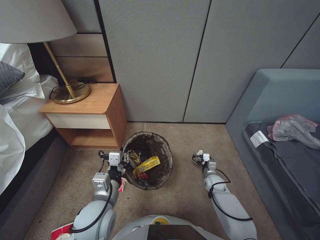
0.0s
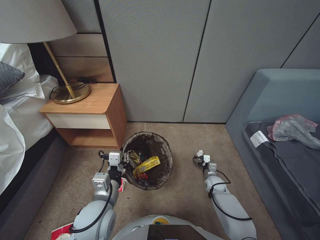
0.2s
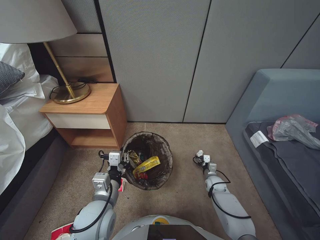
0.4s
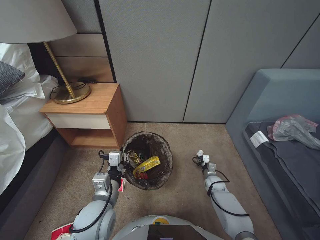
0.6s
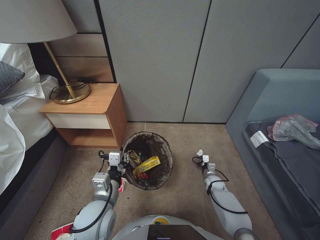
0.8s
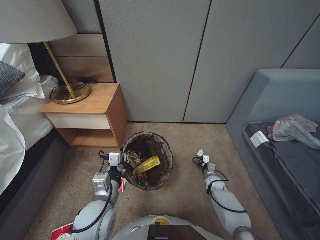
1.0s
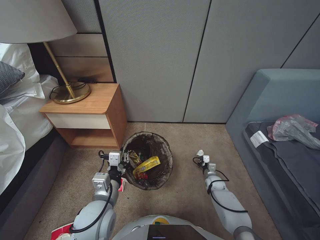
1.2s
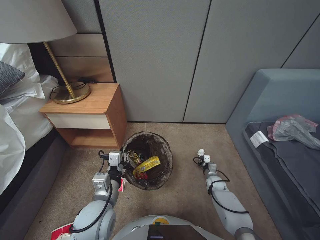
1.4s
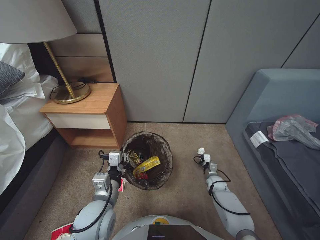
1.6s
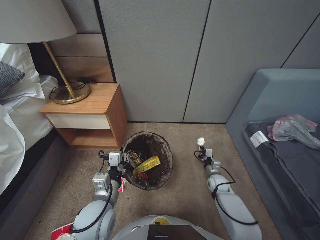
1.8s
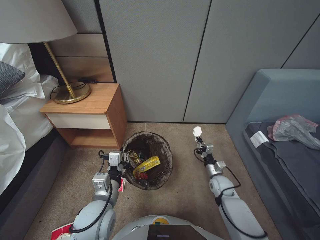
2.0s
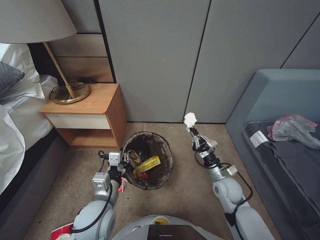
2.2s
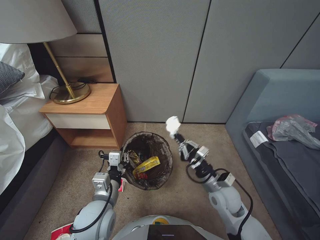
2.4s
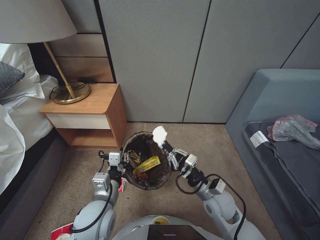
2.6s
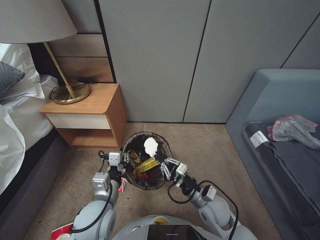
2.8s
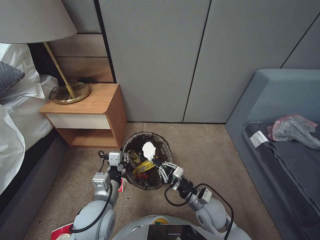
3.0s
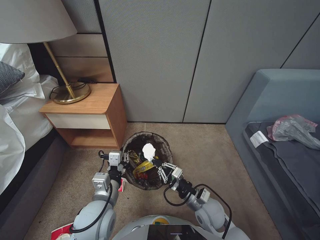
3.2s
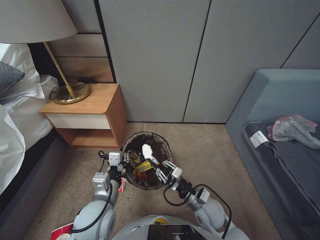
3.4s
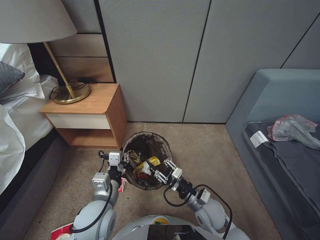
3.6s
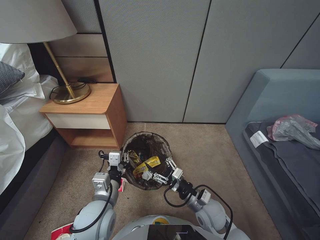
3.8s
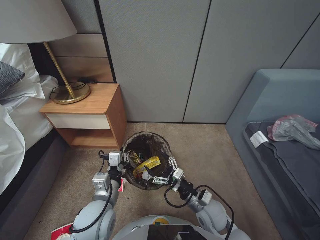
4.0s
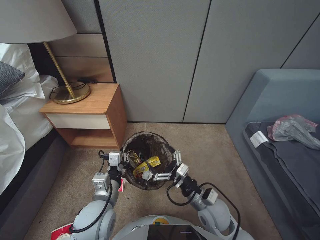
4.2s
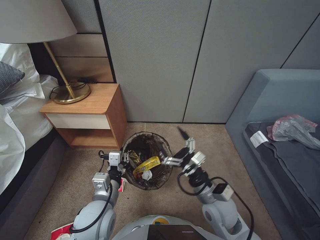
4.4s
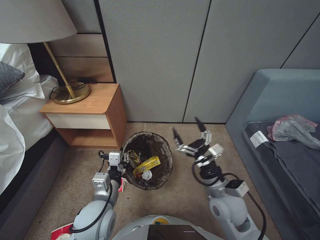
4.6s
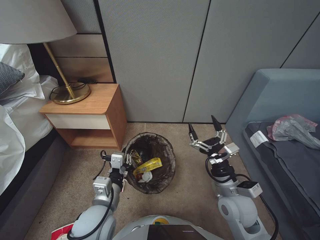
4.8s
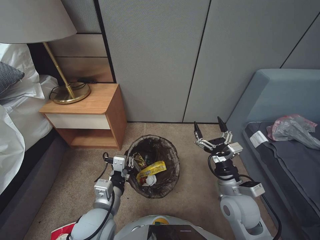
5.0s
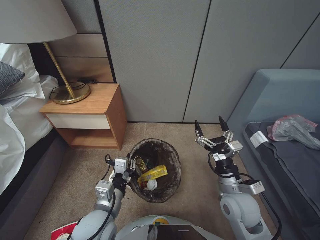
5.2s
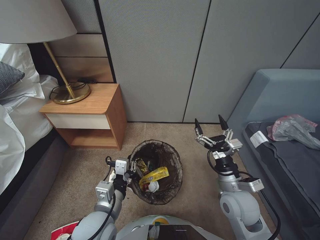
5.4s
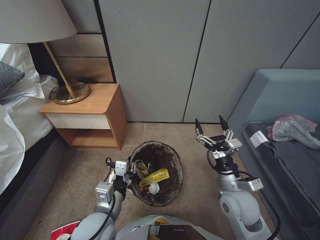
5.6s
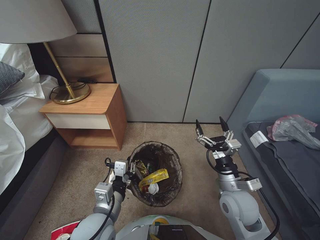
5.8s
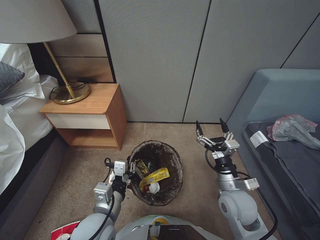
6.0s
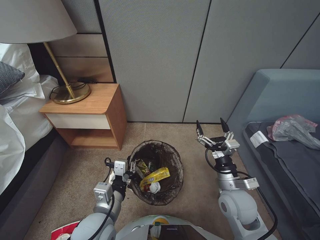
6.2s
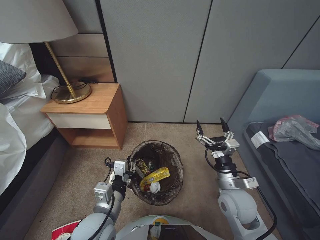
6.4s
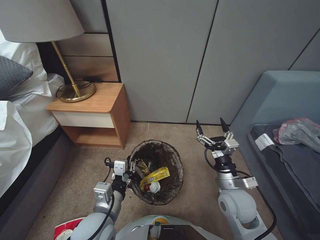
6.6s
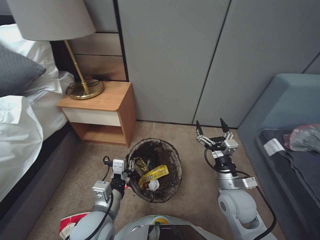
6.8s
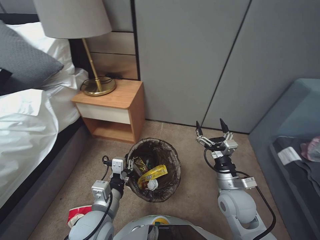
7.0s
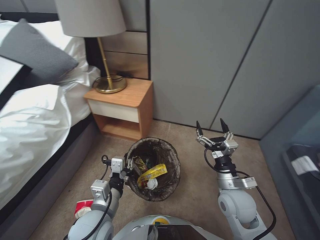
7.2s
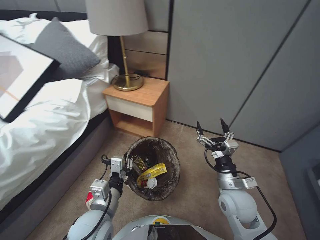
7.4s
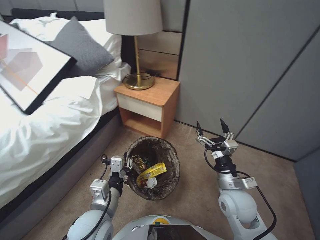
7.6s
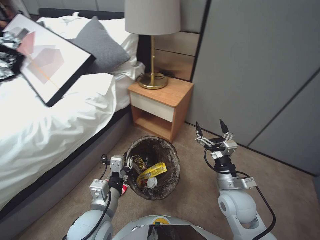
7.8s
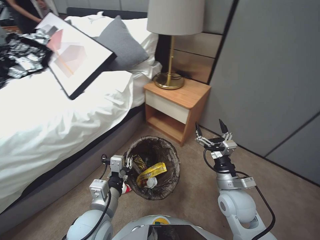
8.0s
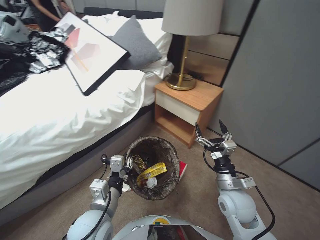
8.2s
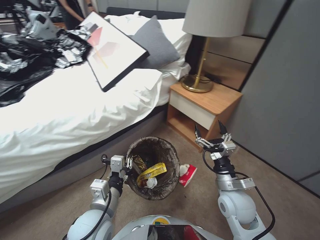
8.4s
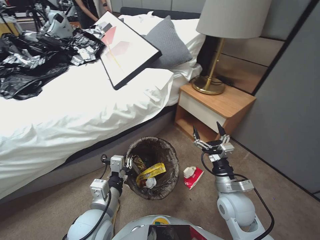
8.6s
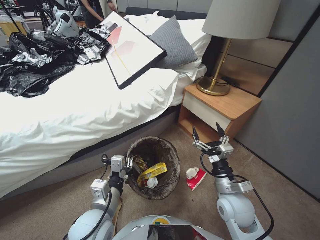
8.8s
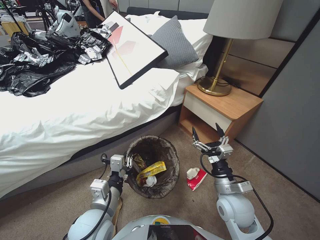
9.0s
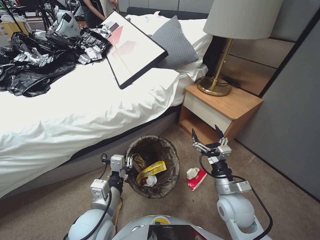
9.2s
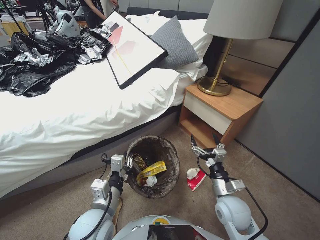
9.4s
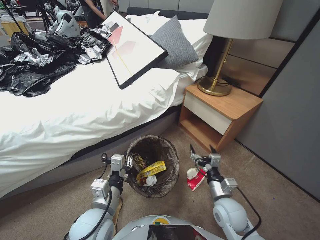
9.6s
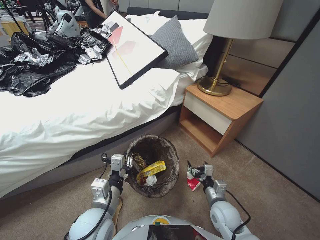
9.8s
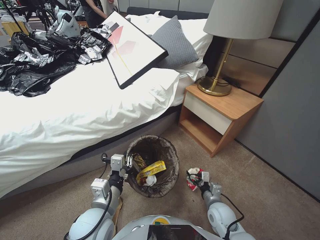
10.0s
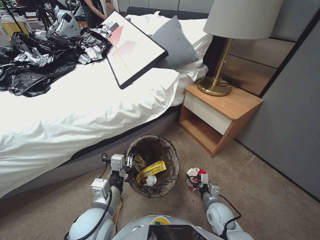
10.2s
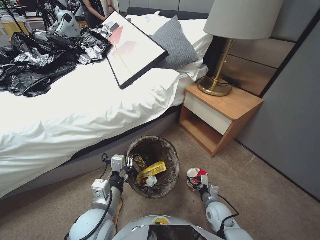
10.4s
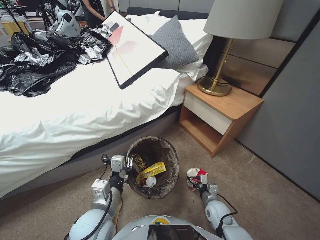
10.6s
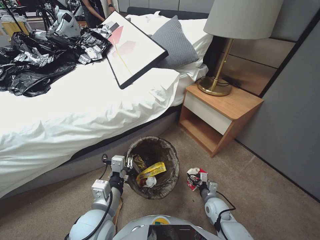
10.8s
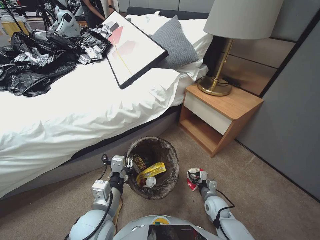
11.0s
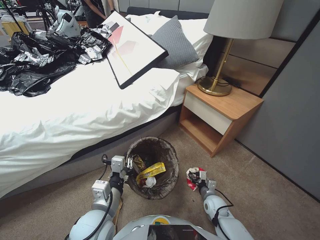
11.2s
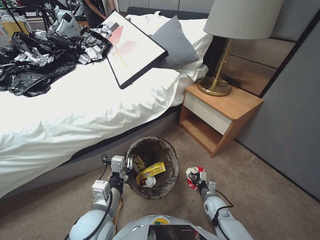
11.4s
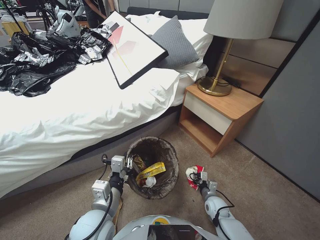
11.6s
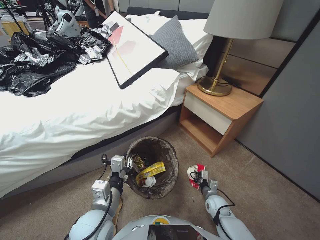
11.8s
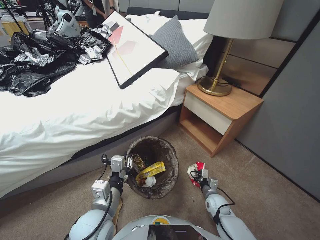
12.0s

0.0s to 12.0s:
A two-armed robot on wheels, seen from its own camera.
Task of the whole recording: Pick up the trash bin, then pick up the garbage from the floor and place it into the trash bin.
0.0s to 1.6s: The right gripper moves about 5 cm, and closes its fingers.
1.6s to 3.0s: The right gripper shifts approximately 30 cm upward, backward and to the left.
3.0s to 4.4s: The right gripper opens.
4.4s to 6.0s: The right gripper is displaced upward and to the right by about 10 cm.
9.0s to 10.4s: The right gripper moves downward, roughly 20 cm.
10.4s to 12.0s: The right gripper ends up approximately 5 cm from where it was, and closes up.

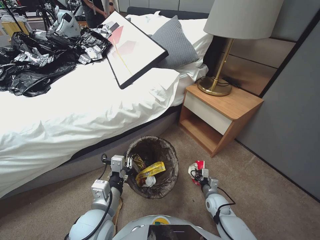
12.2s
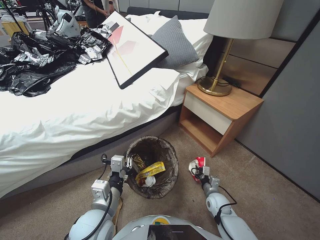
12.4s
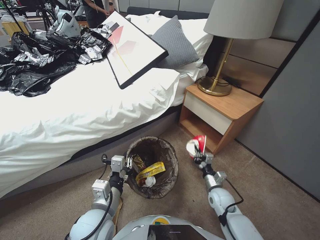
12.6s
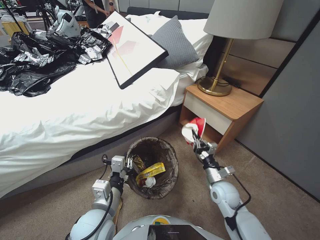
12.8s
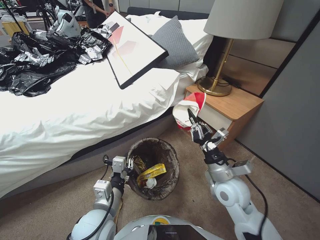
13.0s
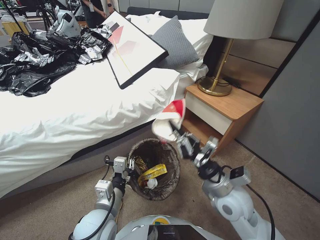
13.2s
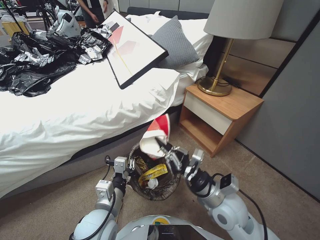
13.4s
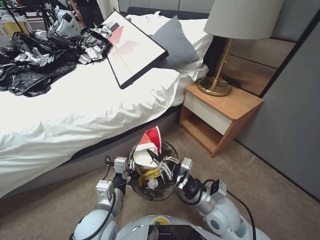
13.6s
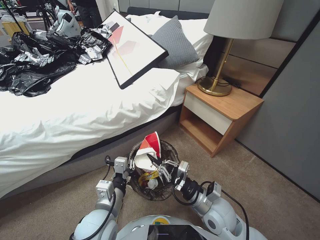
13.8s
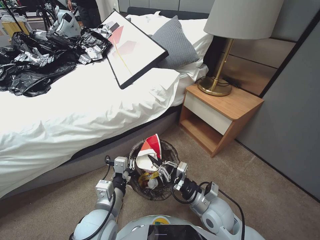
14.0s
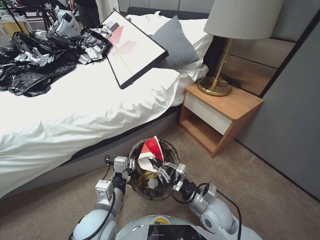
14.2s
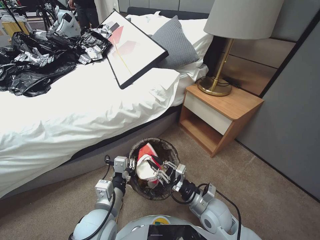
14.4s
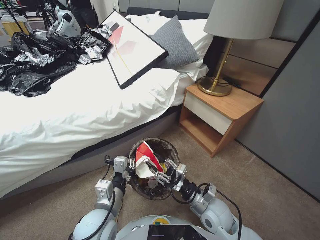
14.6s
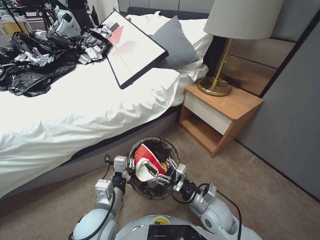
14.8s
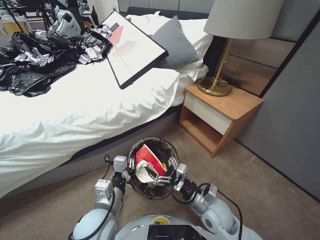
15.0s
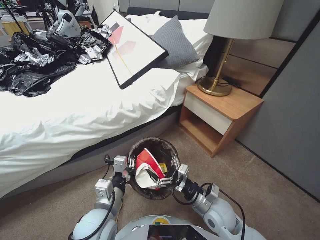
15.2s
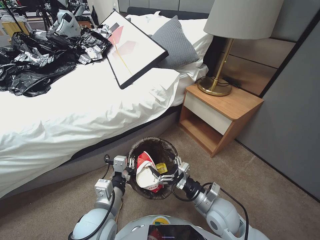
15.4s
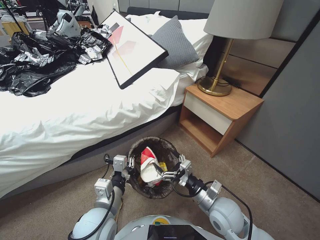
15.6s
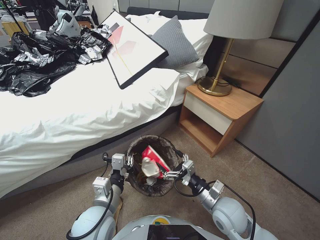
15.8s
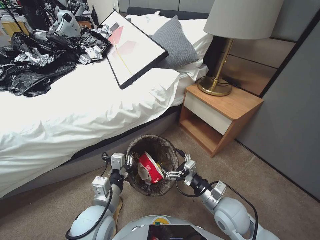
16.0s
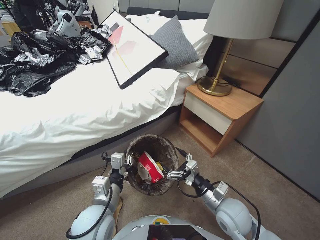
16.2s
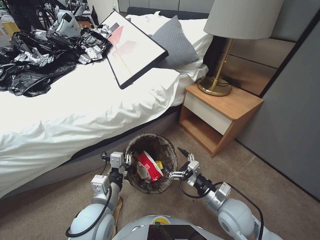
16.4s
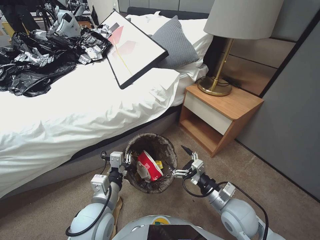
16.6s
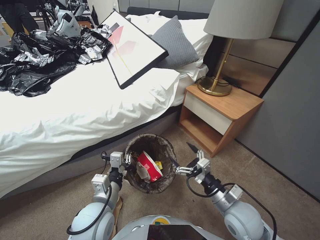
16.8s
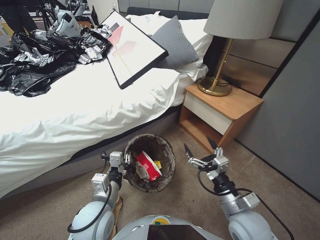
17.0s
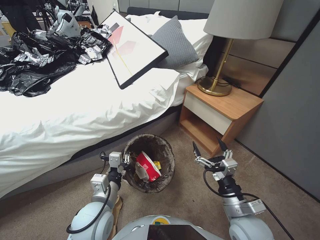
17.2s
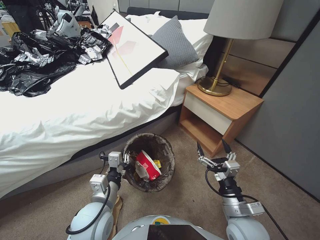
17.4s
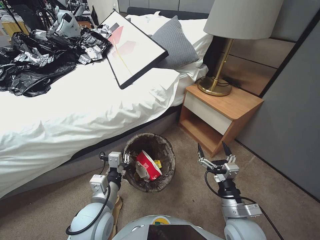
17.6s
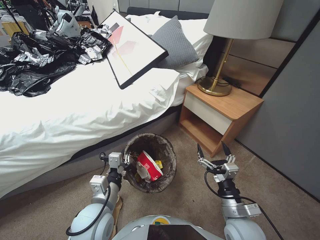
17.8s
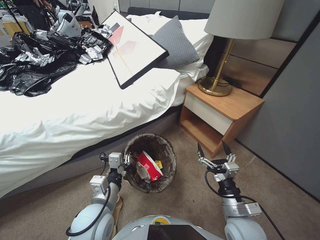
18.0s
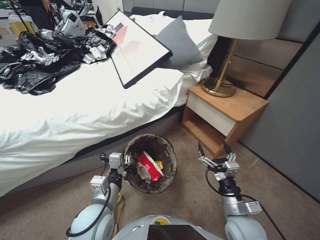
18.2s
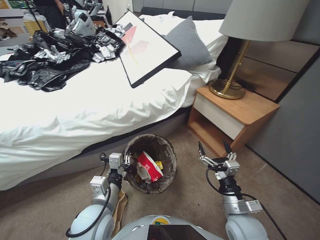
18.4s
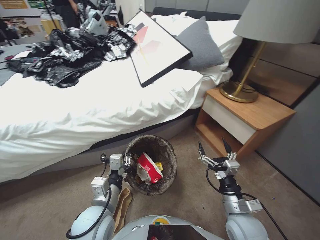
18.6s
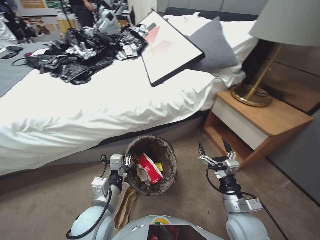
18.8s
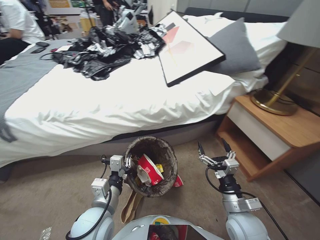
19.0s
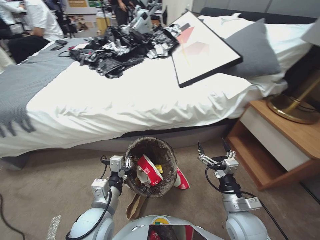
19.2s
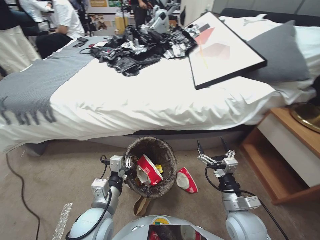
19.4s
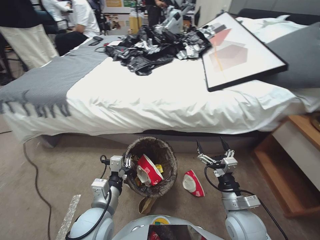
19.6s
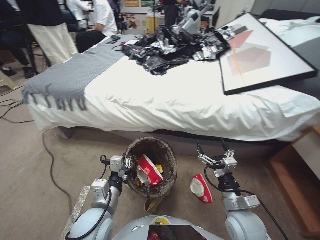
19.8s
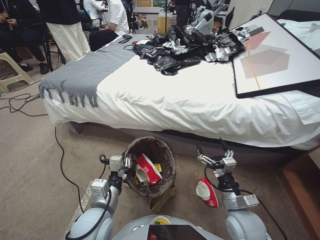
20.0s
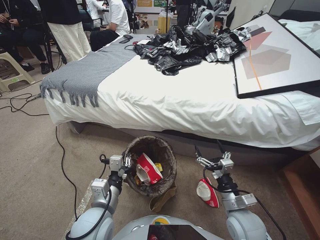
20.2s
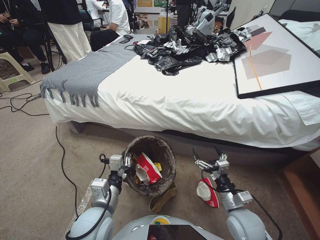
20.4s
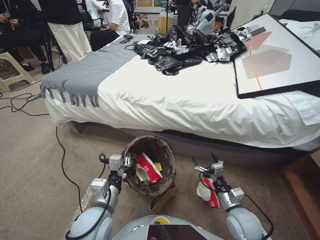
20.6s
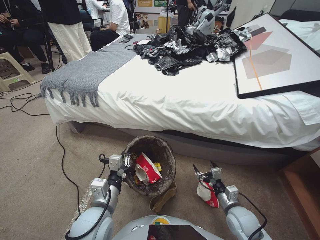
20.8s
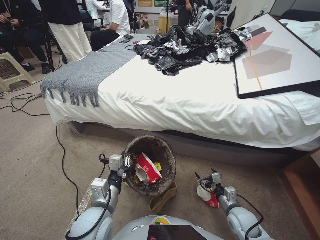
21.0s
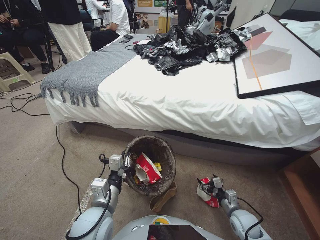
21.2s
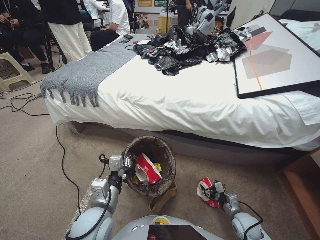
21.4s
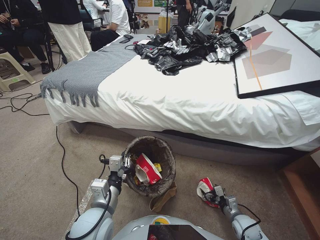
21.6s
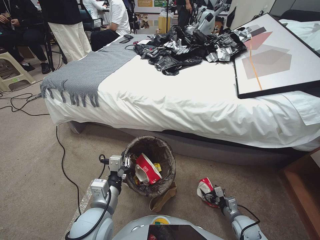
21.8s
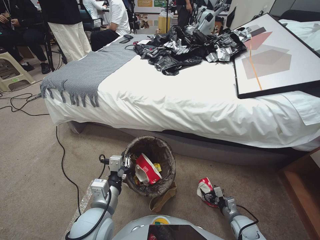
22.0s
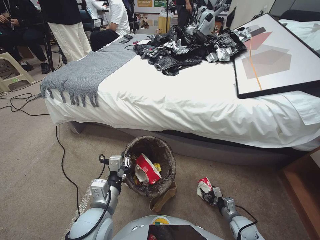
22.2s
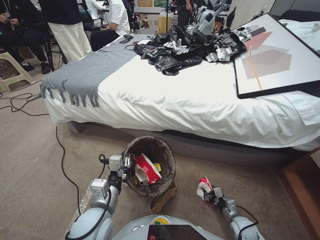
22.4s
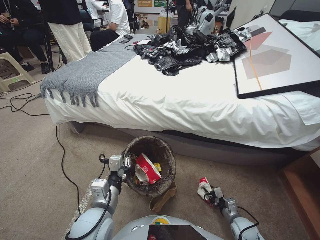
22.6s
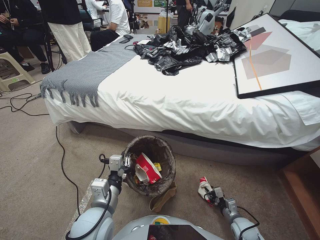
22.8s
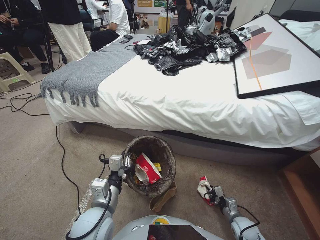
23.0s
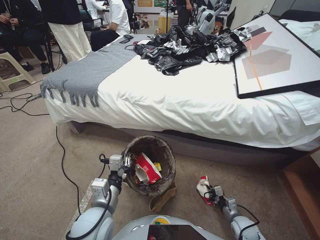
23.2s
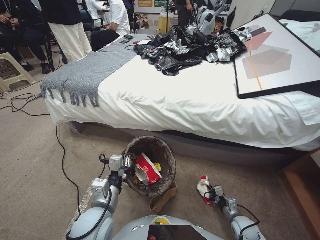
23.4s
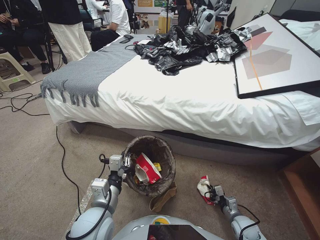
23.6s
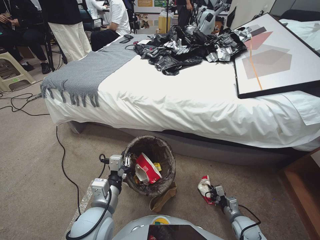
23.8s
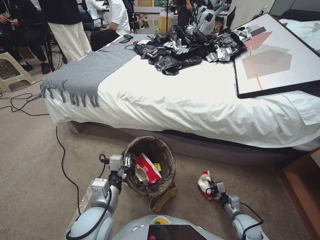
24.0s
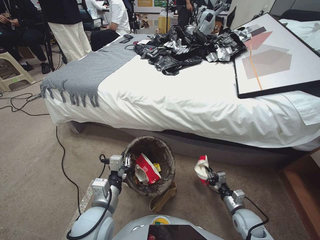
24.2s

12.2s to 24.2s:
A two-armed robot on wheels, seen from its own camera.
Task of the whole recording: Pick up the trash bin, then pick up the garbage from the floor and place it into the trash bin.
12.2s to 13.8s: The right gripper moves upward and to the left, roughly 25 cm.
13.8s to 15.2s: The right gripper is displaced downward by some 5 cm, and opens.
15.2s to 16.6s: The right gripper changes place by roughly 5 cm.
19.8s to 21.2s: The right gripper travels downward and to the right by about 10 cm.
21.2s to 22.6s: The right gripper moves downward and to the right, approximately 15 cm, and closes.
22.6s to 24.2s: The right gripper closes its fingers.
